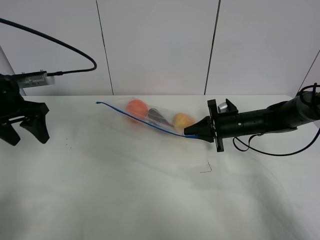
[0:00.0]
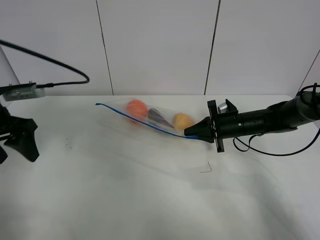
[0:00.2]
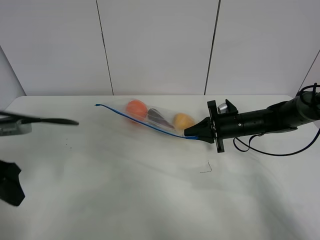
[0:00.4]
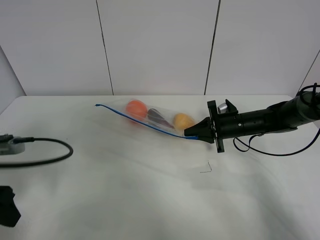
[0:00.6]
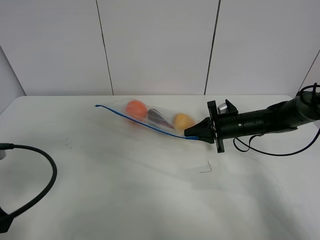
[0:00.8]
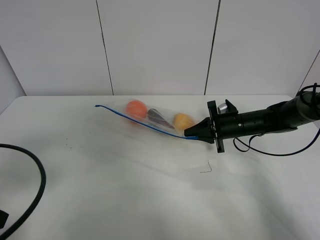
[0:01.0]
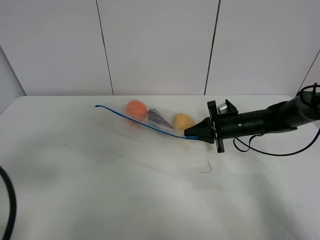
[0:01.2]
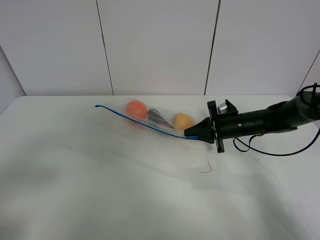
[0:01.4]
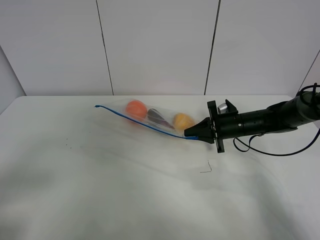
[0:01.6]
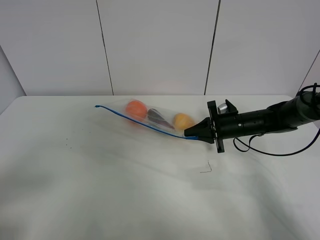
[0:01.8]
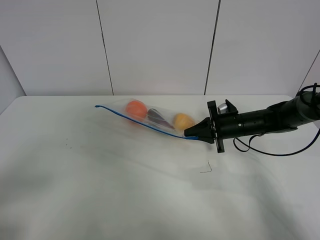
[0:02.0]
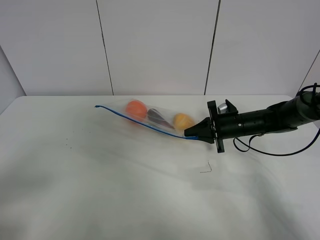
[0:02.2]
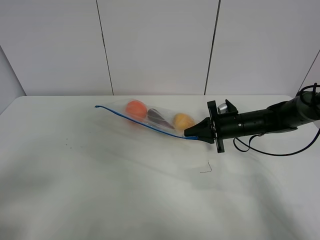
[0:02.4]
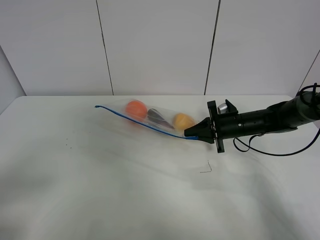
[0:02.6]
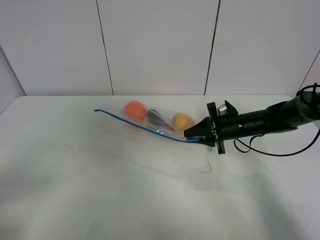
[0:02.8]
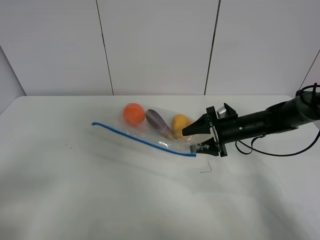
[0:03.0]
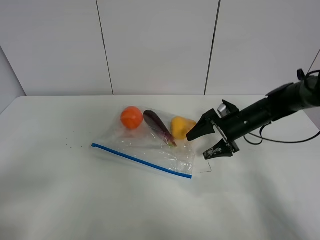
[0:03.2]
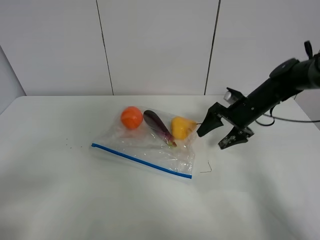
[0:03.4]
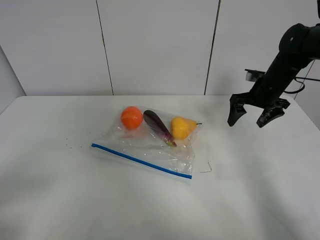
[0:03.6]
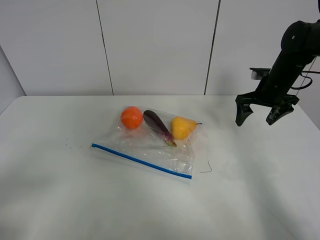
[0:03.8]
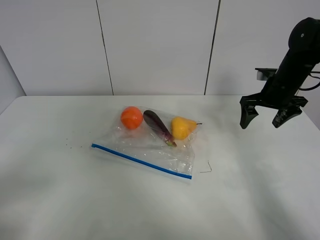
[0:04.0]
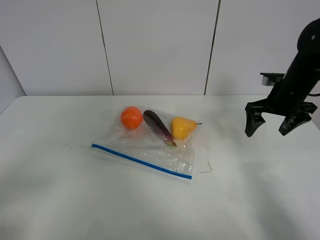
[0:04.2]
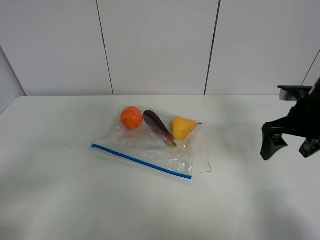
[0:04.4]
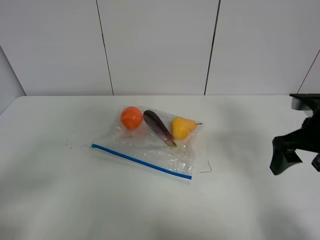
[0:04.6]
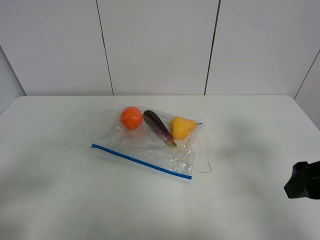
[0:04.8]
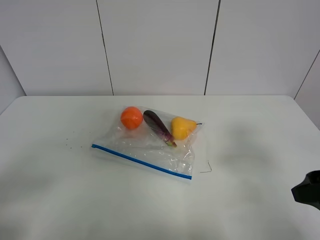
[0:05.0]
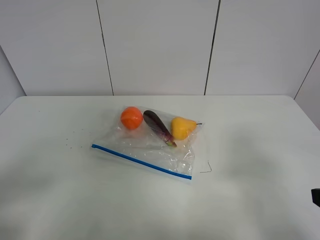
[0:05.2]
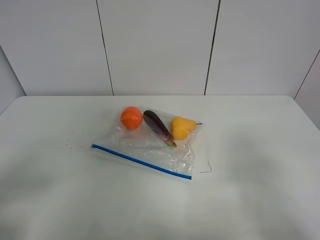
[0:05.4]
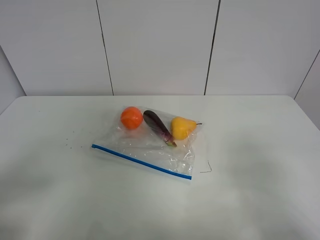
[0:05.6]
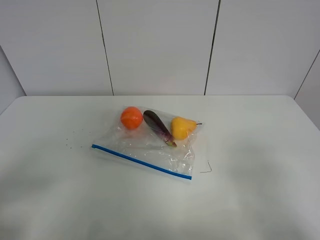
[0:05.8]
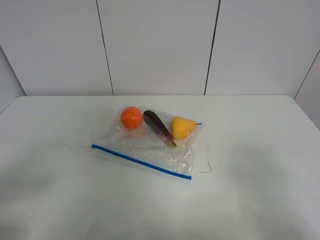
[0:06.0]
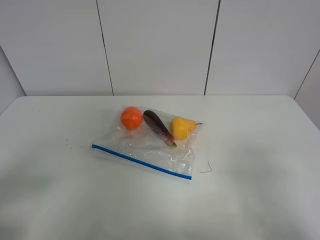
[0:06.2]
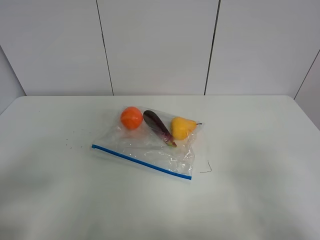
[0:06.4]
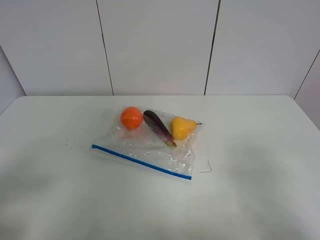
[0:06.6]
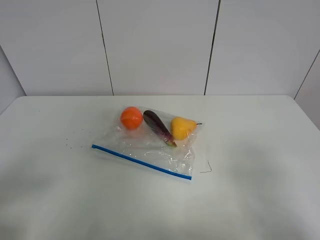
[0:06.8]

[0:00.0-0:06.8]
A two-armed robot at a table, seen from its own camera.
Step, 0:00.0 to 0:03.4: Place the fruit bag with right gripper.
0:00.0 to 0:01.4: The left gripper travels backward by about 25 cm.
0:01.4 to 0:02.8: The grippers stay close to where they were, moving slightly.
0:02.8 to 0:04.0: The right gripper moves upward and to the right, roughly 15 cm, and opens its fingers.
0:04.0 to 0:05.4: The right gripper moves backward, about 35 cm.

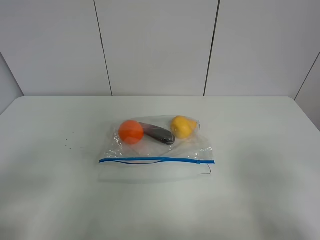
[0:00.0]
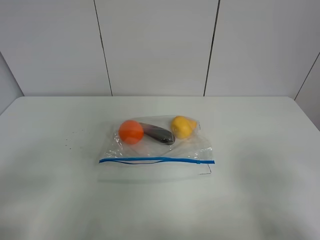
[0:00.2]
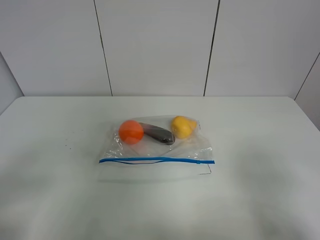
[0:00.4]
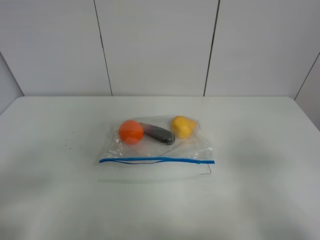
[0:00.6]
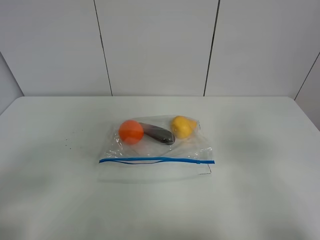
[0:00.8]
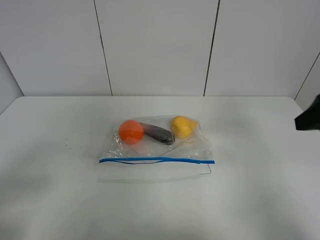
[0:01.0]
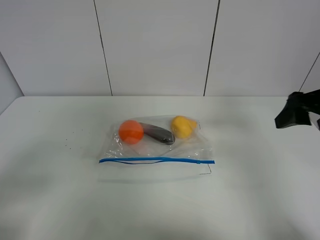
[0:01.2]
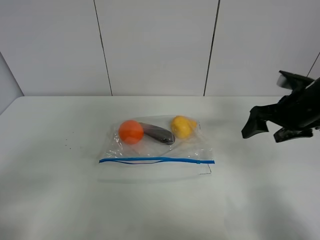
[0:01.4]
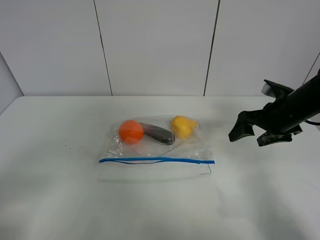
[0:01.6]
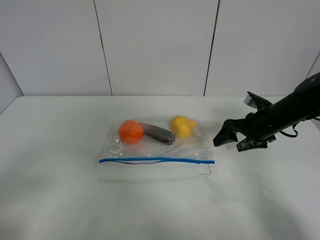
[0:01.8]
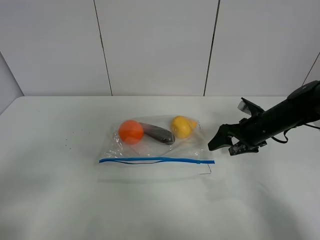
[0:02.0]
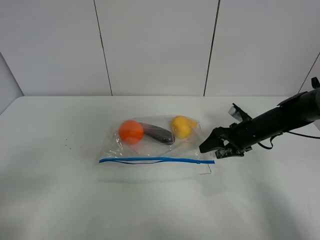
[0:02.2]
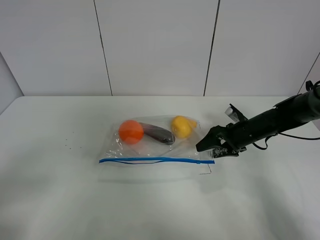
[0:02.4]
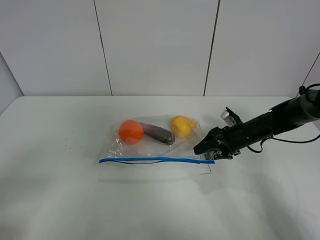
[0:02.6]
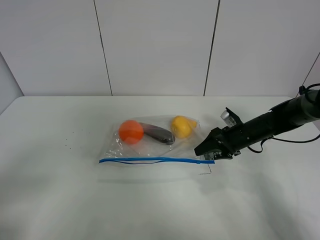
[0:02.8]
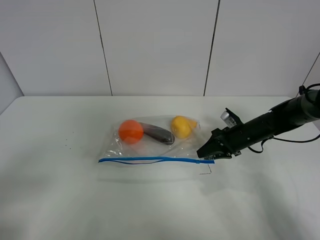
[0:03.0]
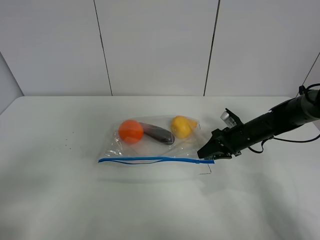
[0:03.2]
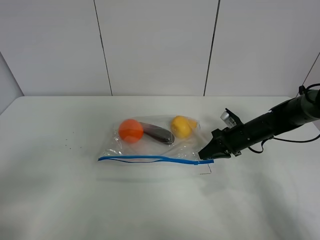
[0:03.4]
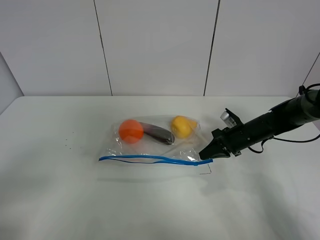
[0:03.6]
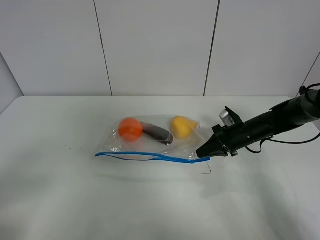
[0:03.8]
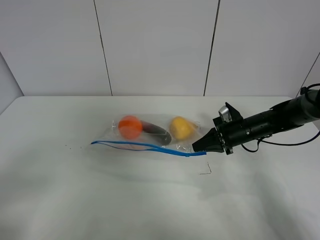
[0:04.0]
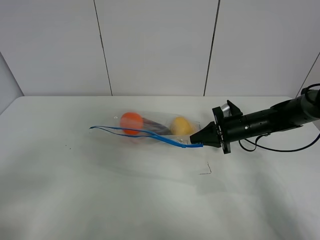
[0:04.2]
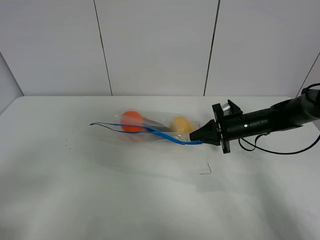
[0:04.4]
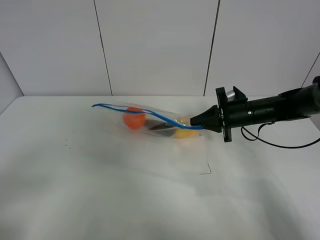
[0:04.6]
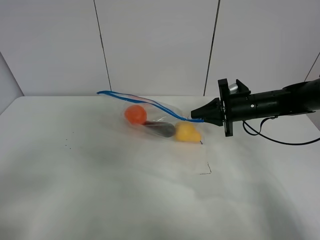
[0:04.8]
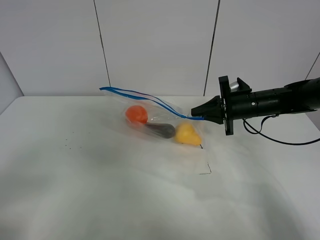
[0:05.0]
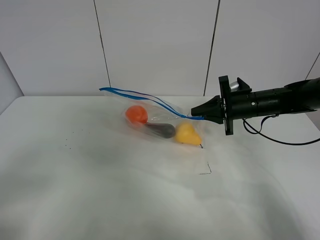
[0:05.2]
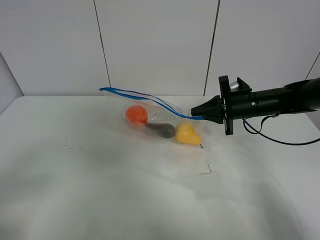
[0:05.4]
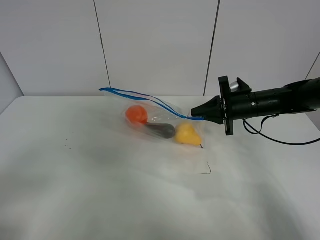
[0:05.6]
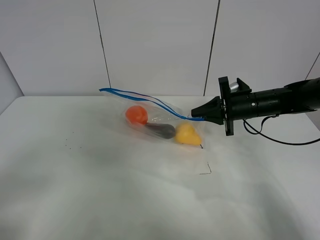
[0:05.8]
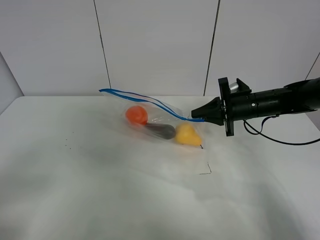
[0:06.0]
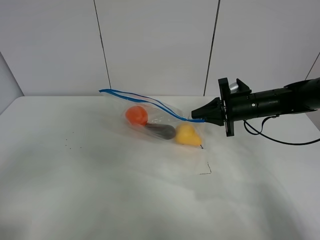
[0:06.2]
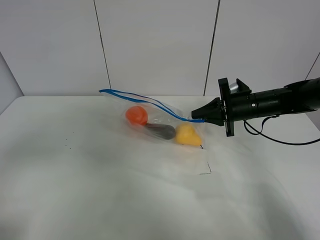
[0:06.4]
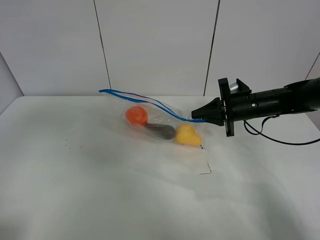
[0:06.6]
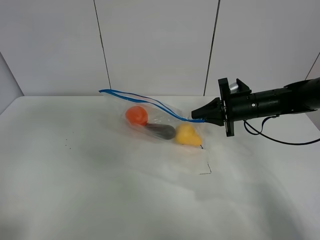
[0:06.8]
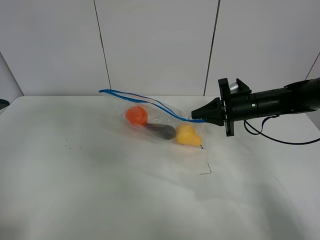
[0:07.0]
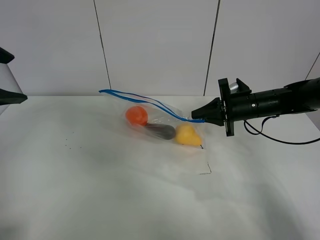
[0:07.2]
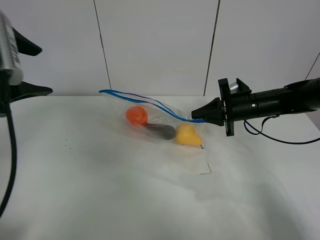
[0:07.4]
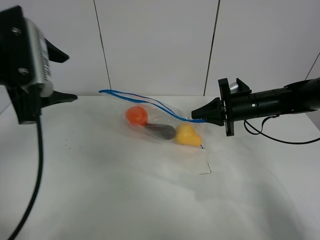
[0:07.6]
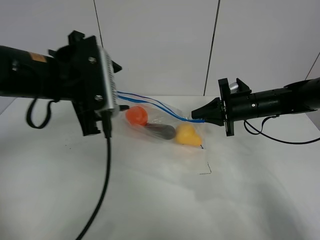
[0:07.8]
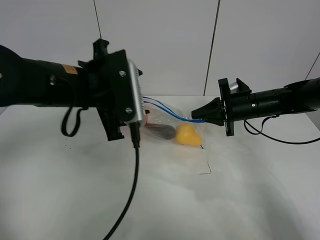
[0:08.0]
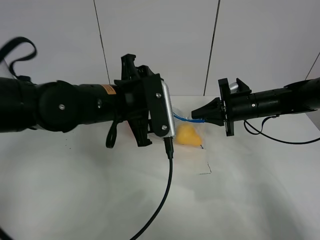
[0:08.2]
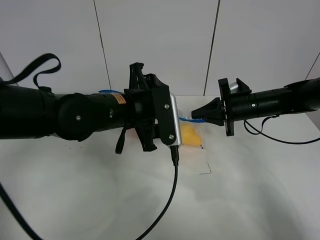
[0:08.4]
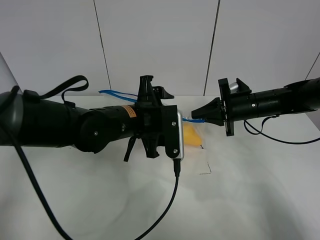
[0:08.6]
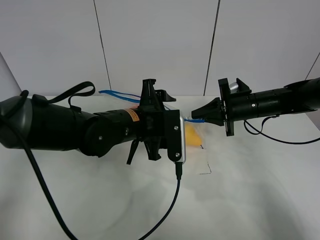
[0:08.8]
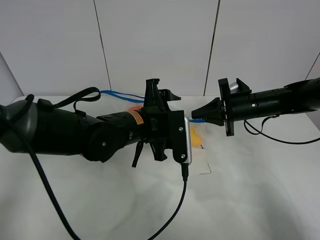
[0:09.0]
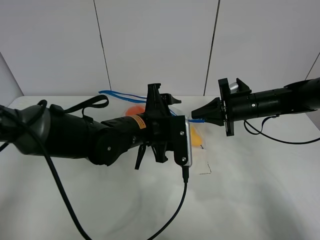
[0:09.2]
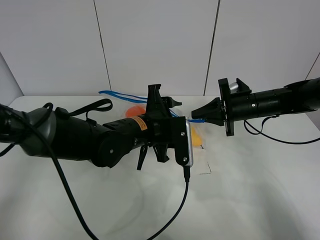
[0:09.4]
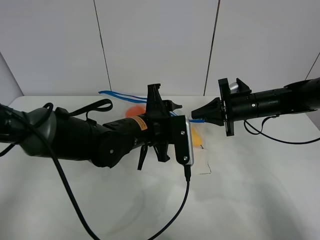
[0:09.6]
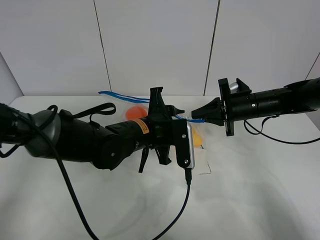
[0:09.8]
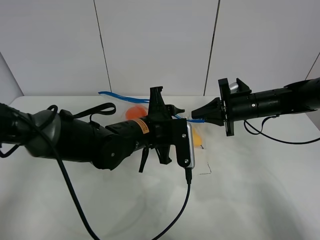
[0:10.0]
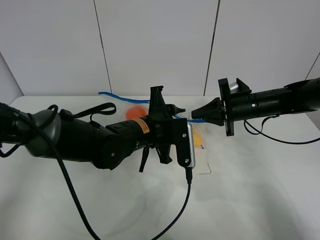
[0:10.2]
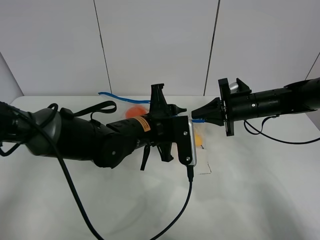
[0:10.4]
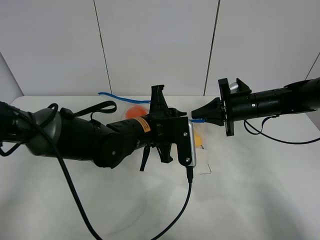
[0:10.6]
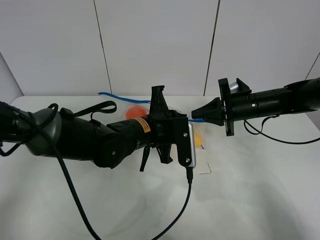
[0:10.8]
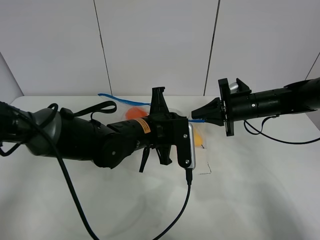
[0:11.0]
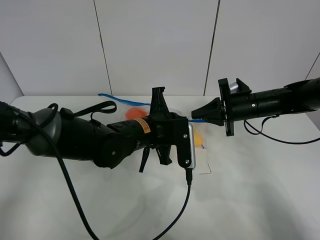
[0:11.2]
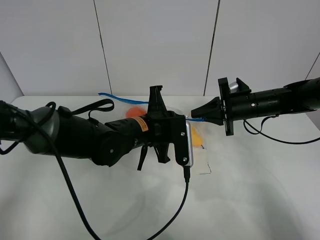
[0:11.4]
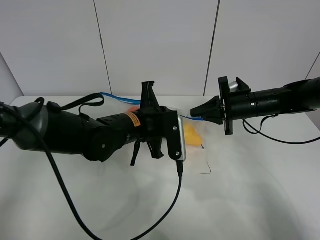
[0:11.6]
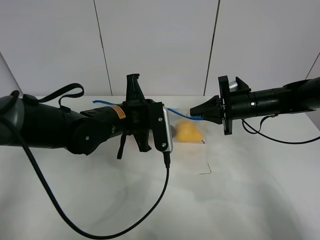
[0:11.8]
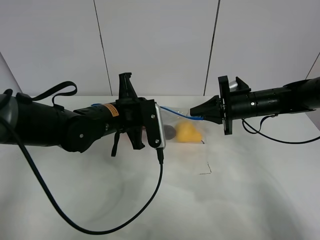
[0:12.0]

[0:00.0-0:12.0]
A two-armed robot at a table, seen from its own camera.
Step, 0:00.0 to 0:03.4: Grasp the fruit bag with right gripper.
Step, 0:03.6 to 0:05.2: Lift the fruit bag with your right gripper.
0:00.0 to 0:01.6: The right gripper travels forward by approximately 30 cm.
0:01.6 to 0:03.0: The right gripper moves downward, about 10 cm, and closes its fingers.
0:03.0 to 0:04.4: The right gripper closes up.
0:04.4 to 0:06.0: The right gripper is displaced upward by about 5 cm.
0:06.0 to 0:07.6: The left gripper moves forward, some 25 cm.
0:07.6 to 0:09.0: The left gripper goes roughly 20 cm to the right and downward.
0:09.0 to 0:10.4: The left gripper closes up.
0:10.4 to 0:12.0: The left gripper is displaced to the left by approximately 5 cm.

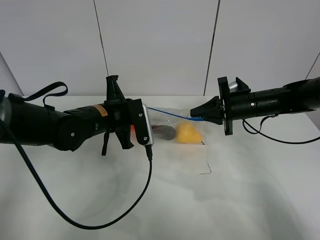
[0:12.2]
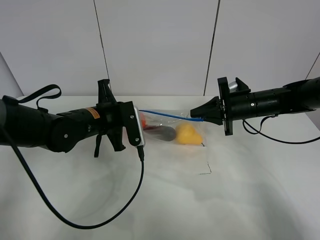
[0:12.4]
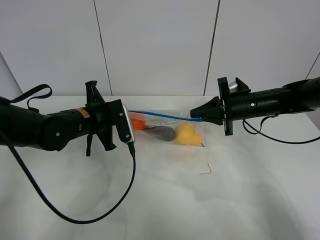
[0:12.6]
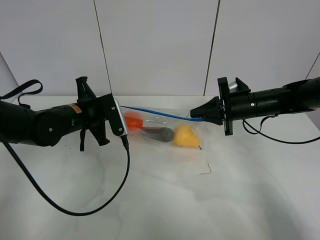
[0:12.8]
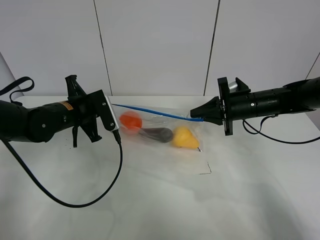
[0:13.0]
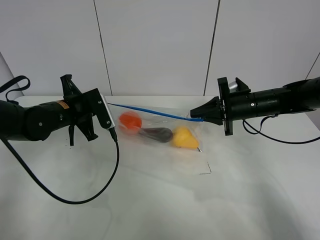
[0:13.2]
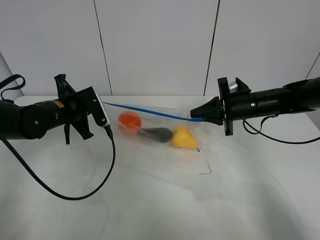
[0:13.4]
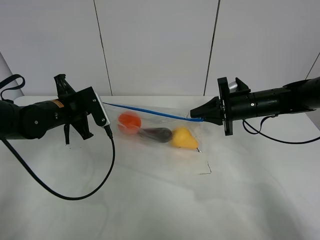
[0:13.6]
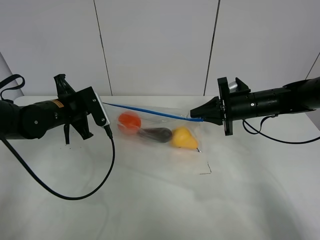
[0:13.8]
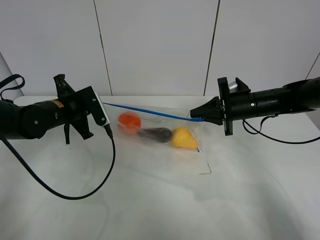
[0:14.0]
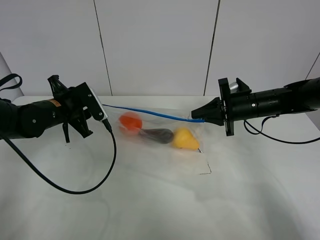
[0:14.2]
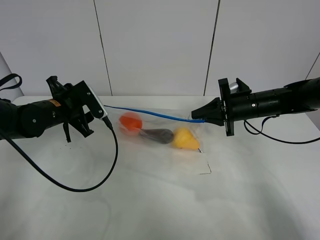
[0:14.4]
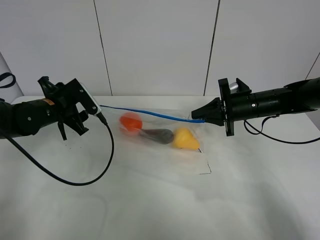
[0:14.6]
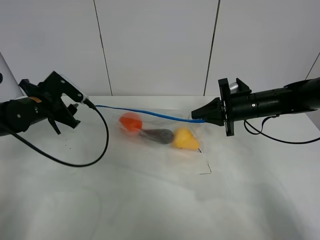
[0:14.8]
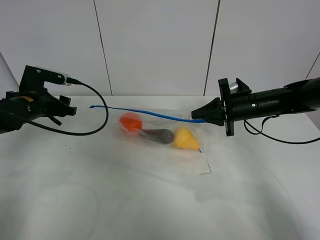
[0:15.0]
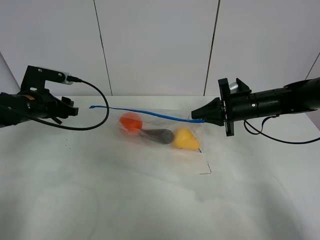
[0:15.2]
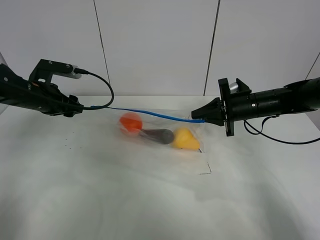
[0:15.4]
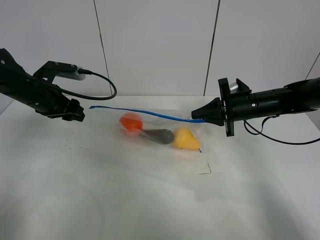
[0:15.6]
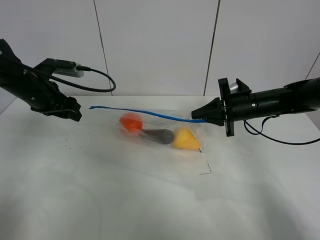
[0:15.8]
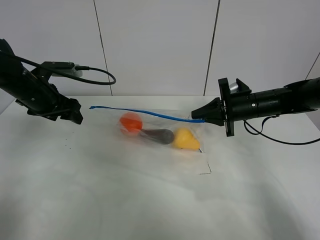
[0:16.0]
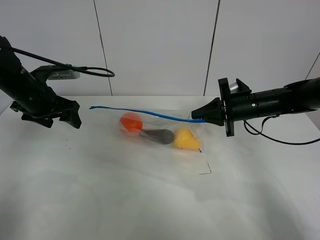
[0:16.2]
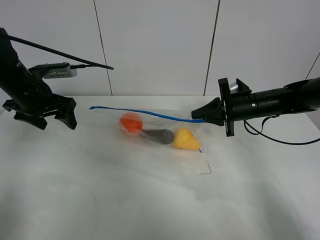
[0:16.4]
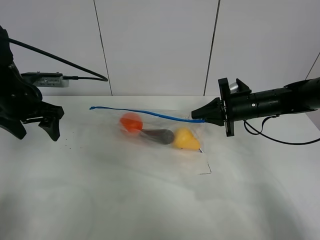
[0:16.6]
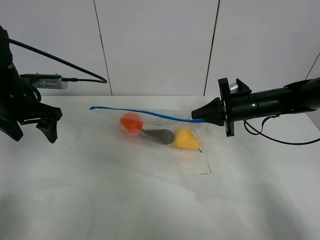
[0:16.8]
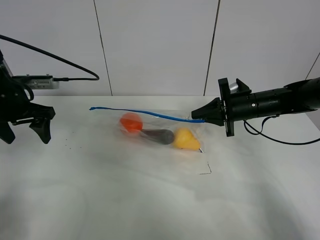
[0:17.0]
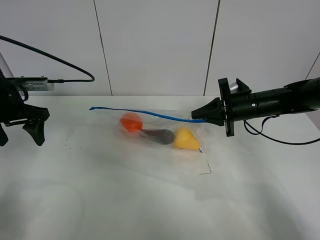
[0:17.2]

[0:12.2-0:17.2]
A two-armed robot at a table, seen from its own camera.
Step, 0:12.2 to 0:14.2: Pull the fruit bag with left gripper.
0:12.2 to 0:13.8: The left gripper is displaced to the left by approximately 10 cm.
0:13.8 to 0:15.6: The left gripper travels to the left by some 5 cm, and opens up.
0:15.6 to 0:17.2: The left gripper moves about 5 cm.
